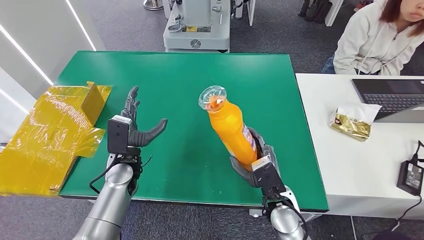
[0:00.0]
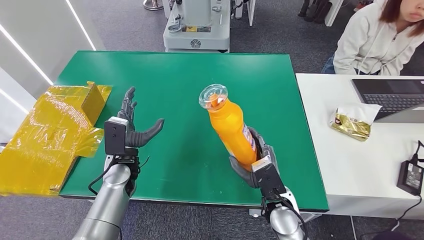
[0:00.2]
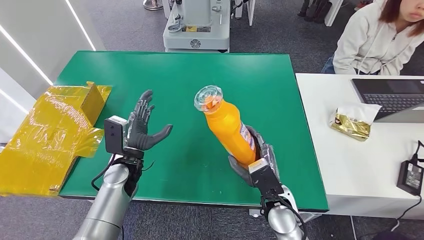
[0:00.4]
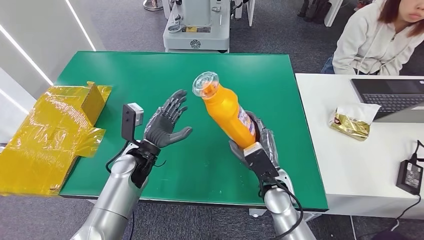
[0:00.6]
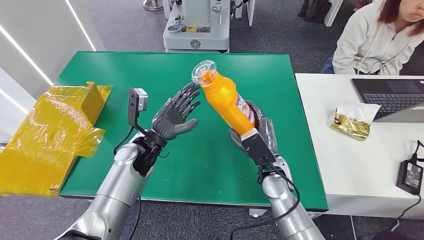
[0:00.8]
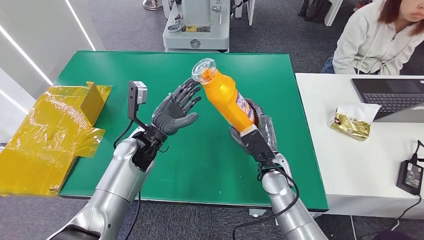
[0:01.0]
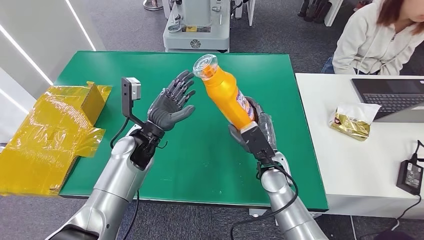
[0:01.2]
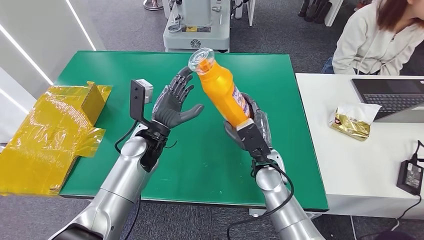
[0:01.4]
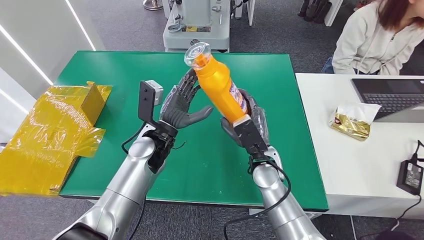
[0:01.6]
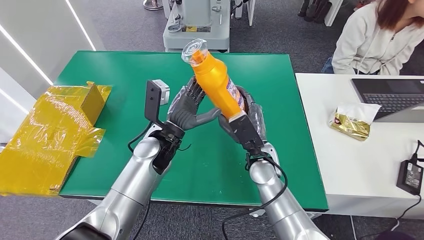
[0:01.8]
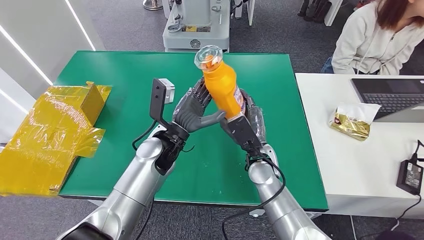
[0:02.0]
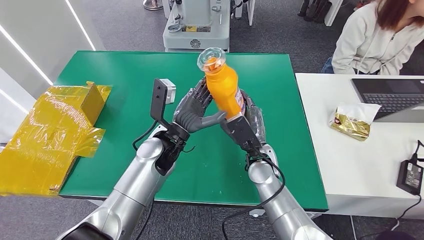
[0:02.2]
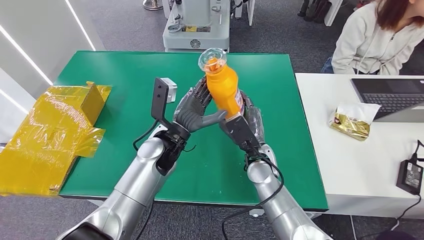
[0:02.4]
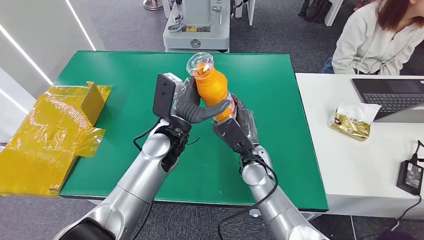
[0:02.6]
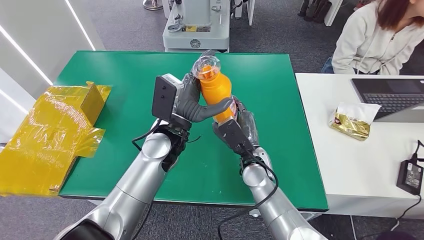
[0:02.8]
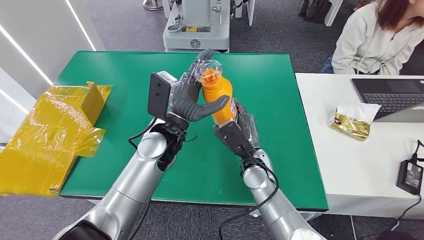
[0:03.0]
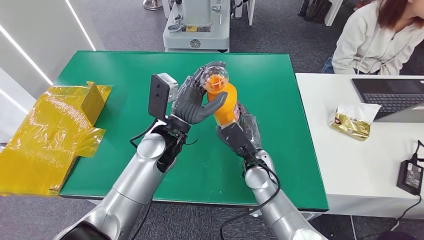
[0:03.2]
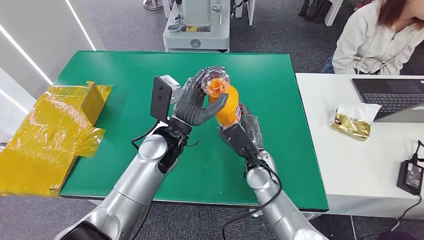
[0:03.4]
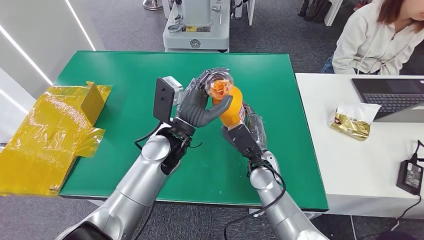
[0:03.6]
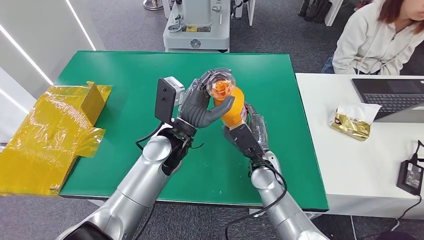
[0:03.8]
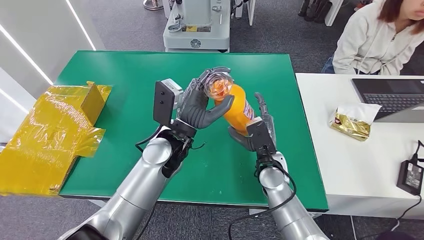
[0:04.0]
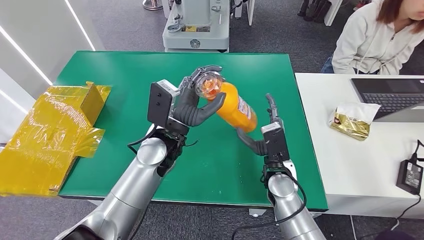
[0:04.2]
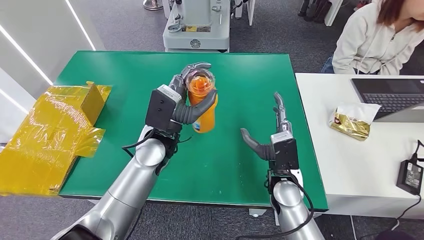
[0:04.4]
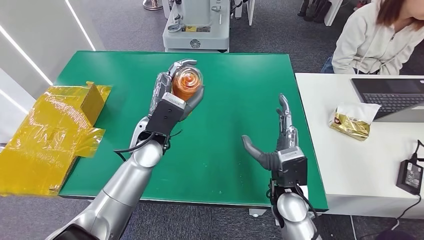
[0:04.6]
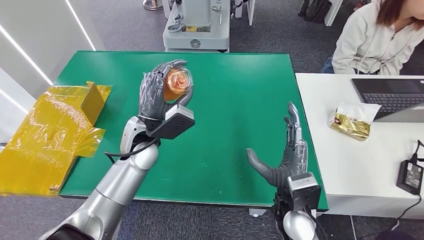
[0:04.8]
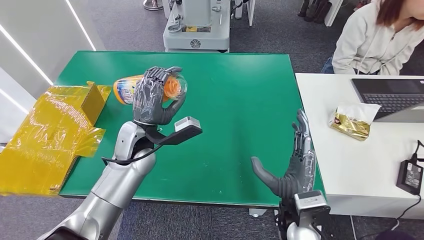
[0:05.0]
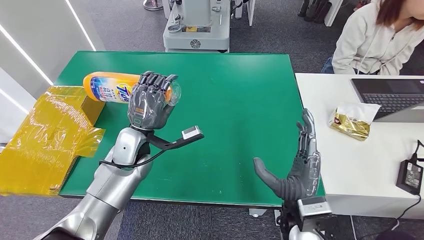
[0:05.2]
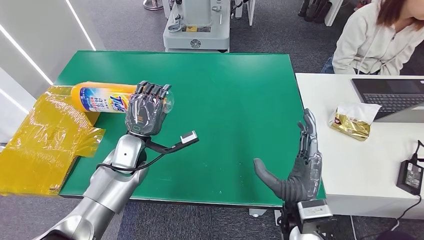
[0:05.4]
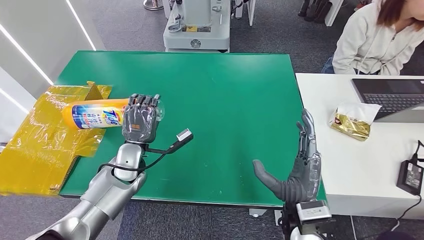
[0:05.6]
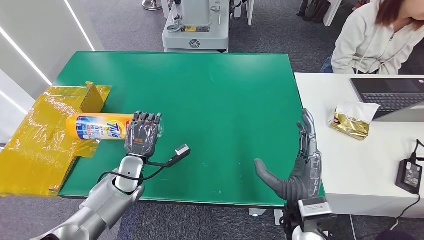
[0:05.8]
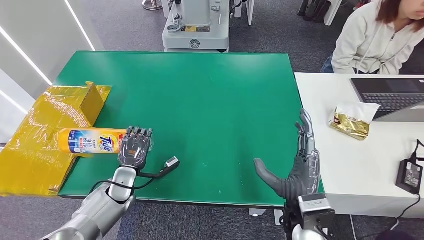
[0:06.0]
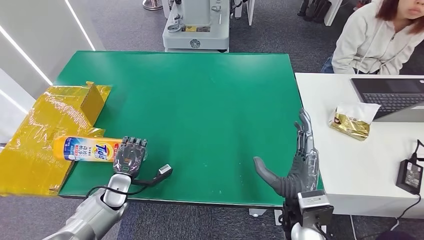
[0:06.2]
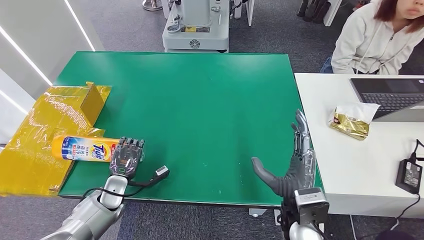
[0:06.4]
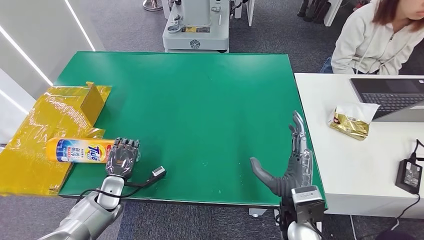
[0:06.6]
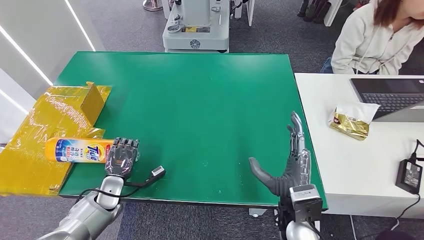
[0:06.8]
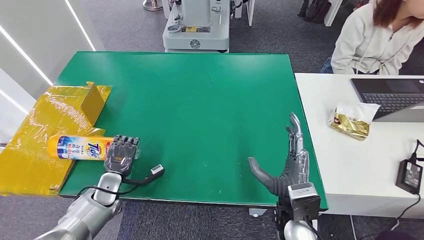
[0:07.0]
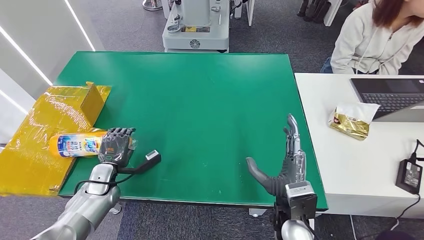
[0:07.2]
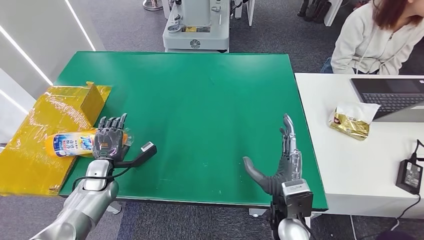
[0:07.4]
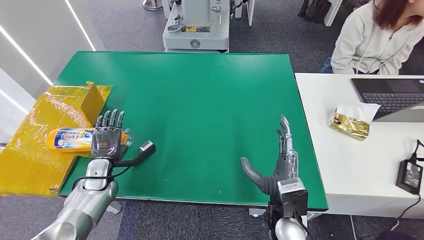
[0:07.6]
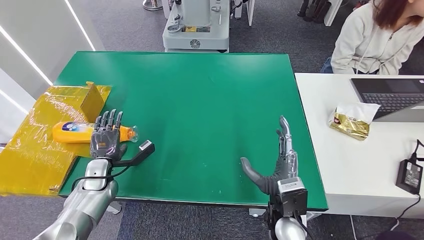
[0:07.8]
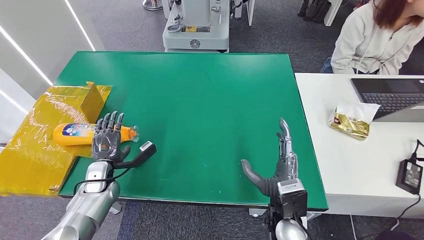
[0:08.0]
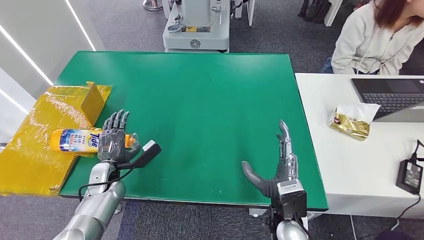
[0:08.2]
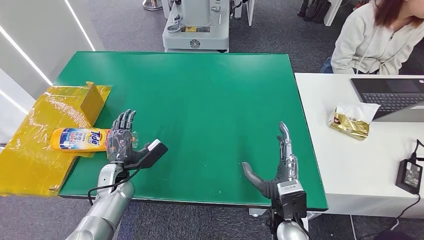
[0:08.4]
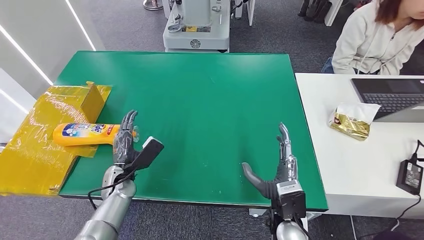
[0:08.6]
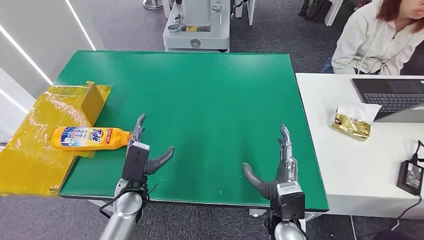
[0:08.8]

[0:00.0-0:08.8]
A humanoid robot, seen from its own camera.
Step, 0:00.0 to 0:08.6: Turn the bottle to the front side.
0:00.0 to 0:01.4: The left hand moves upward and to the right, some 10 cm. The right hand heads forward, covering roughly 10 cm.
0:01.4 to 0:03.0: The left hand travels to the right by approximately 5 cm.
0:03.0 to 0:04.4: The right hand goes some 5 cm to the right.
0:04.4 to 0:05.8: The left hand travels downward and to the left by some 20 cm. The right hand shifts roughly 10 cm backward.
0:05.8 to 0:07.4: The left hand is displaced to the left by roughly 10 cm.
0:07.4 to 0:08.8: The left hand shifts approximately 15 cm to the right.
